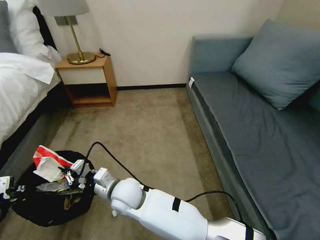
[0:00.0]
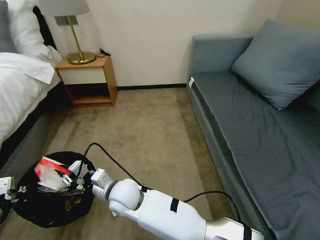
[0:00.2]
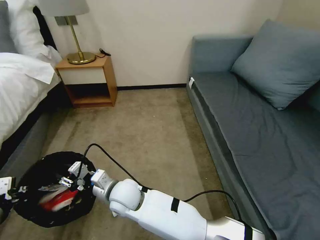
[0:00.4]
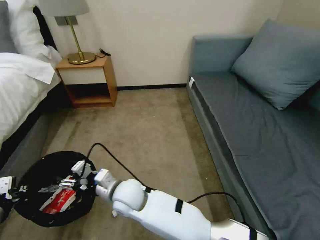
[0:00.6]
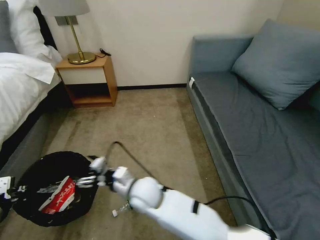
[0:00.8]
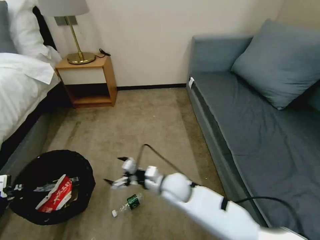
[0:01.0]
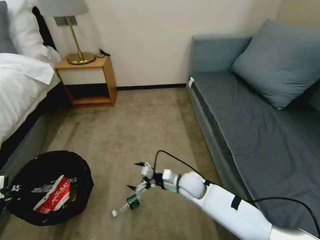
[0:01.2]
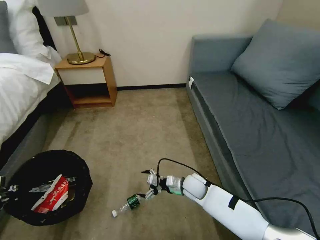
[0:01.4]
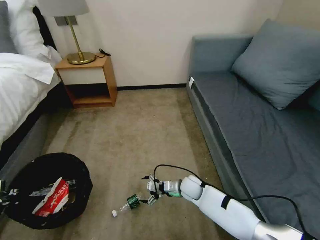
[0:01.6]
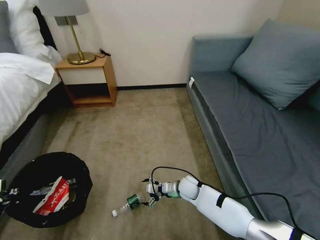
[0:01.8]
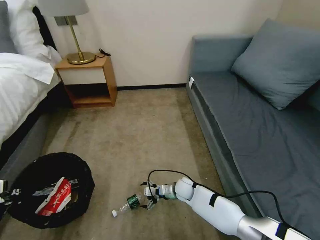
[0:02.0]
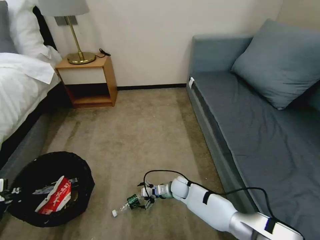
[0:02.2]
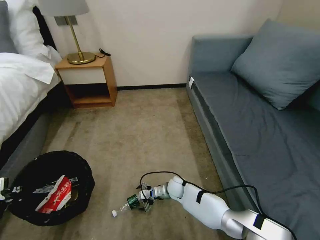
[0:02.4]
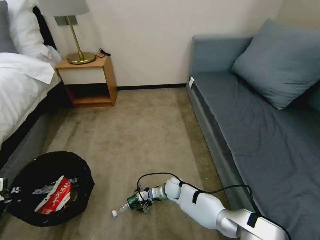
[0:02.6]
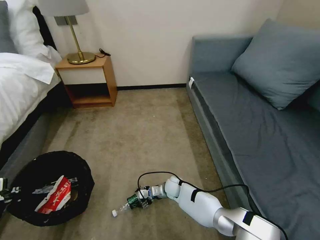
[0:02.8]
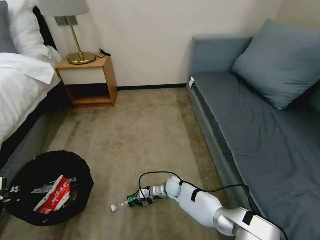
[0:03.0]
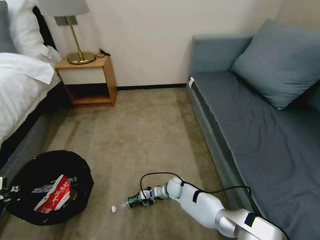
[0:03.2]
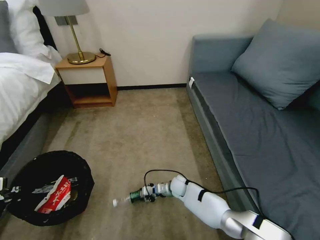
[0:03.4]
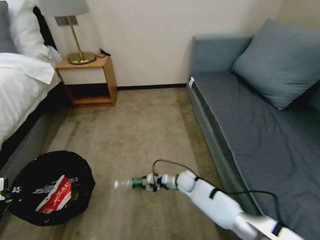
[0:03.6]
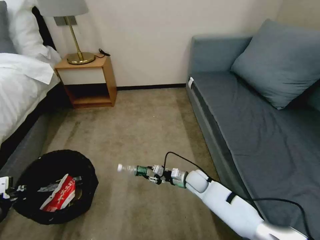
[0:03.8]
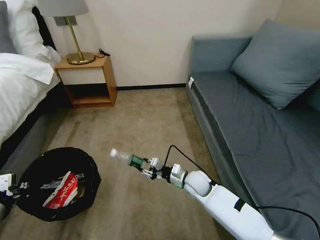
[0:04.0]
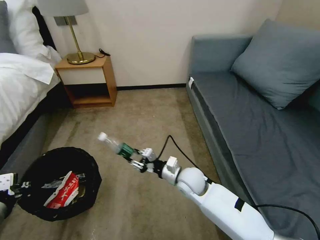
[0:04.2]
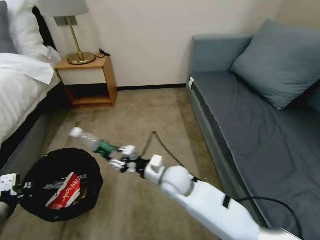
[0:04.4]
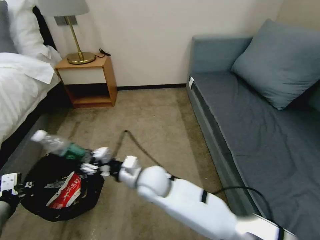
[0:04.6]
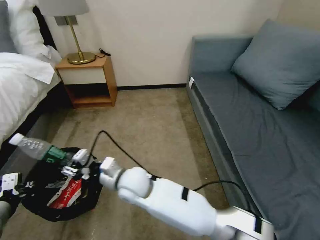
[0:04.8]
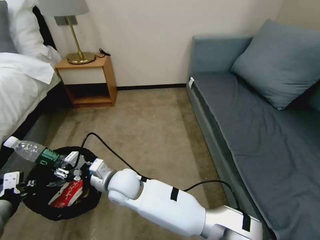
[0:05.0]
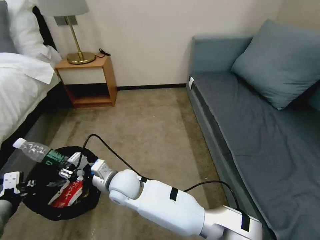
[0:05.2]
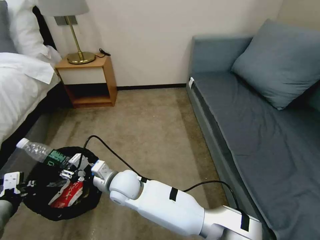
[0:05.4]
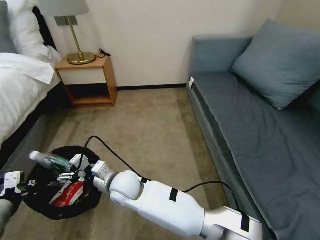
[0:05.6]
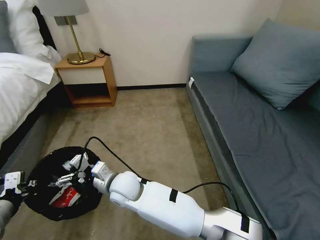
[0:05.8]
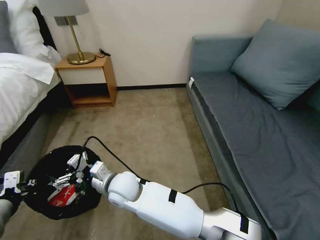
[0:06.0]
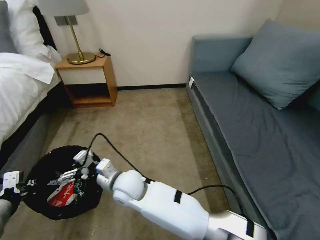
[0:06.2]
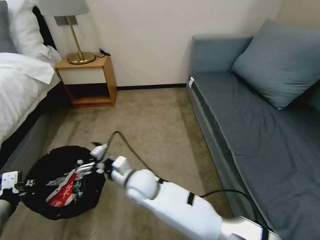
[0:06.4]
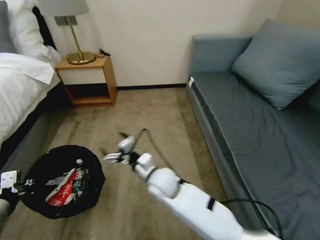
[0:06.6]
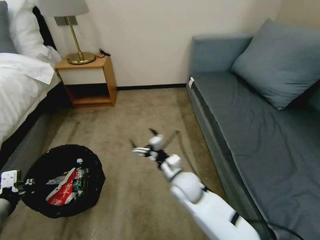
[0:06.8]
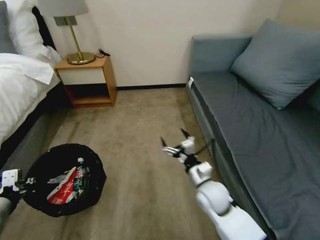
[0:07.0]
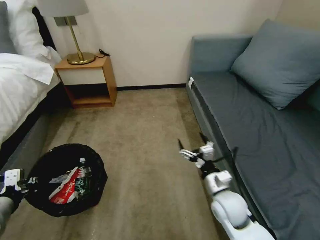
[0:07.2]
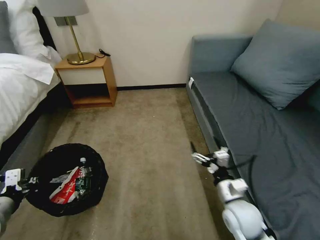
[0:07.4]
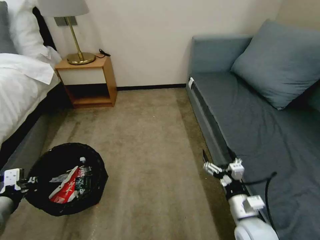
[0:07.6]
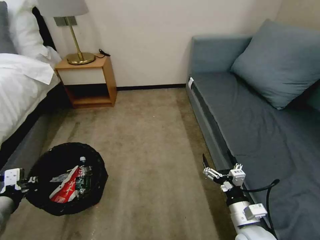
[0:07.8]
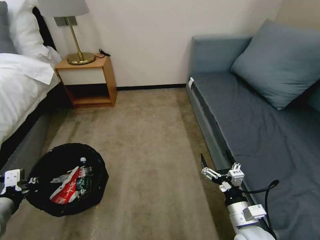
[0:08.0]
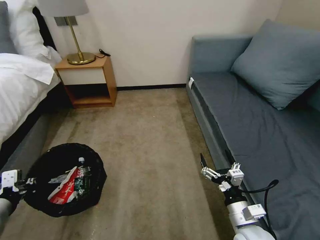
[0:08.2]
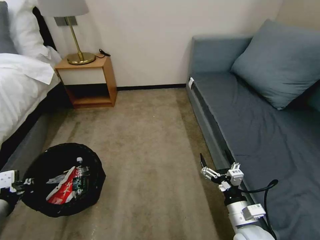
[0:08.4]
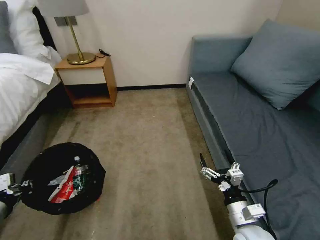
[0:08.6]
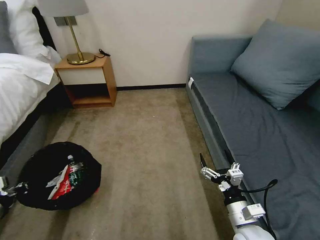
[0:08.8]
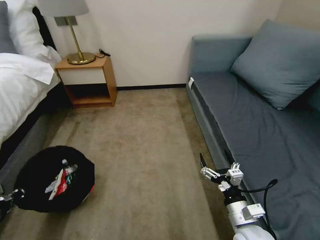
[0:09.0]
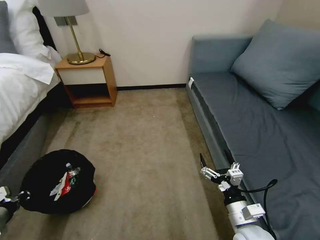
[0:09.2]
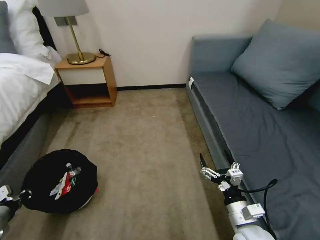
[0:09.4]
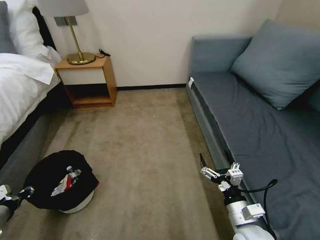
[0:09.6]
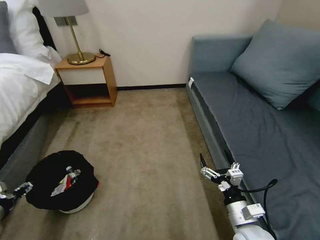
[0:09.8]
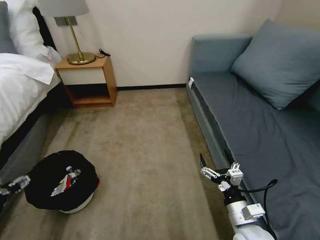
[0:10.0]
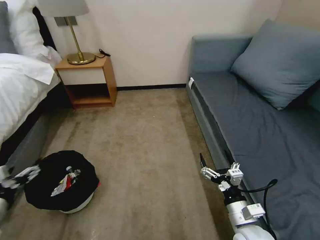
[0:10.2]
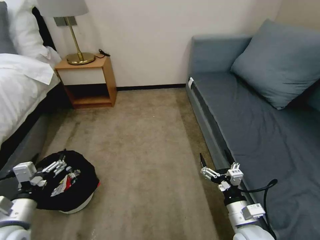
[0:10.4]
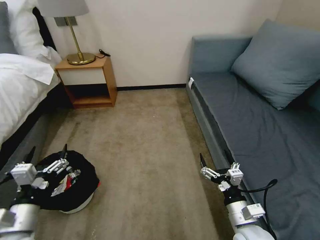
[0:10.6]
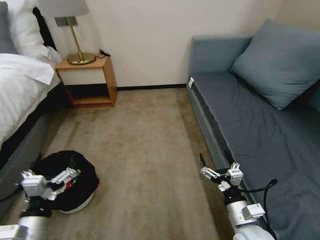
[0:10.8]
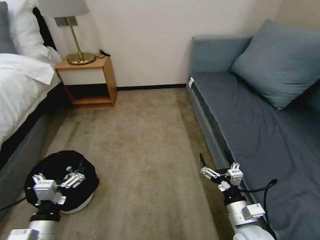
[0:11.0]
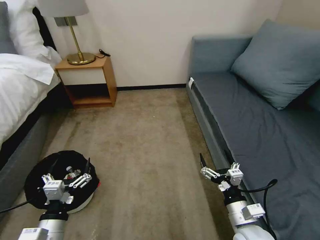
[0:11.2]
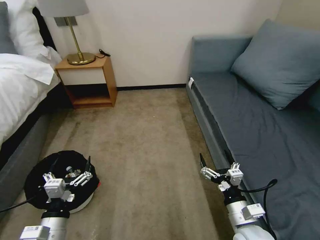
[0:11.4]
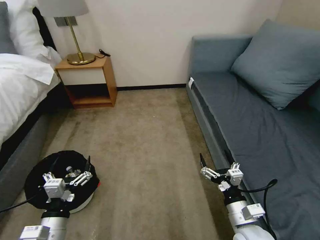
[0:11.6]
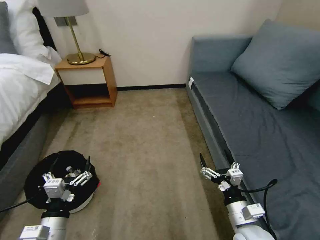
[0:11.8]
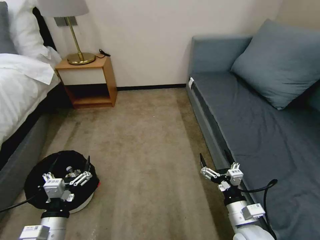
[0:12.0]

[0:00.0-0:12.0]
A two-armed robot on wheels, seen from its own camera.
Task of the whole recording: Pick up the trash bin, then pick up the garbage on the floor and place it into the trash bin.
0:00.0 to 0:01.6: The right gripper shifts some 30 cm to the right and downward, and opens up.
0:01.6 to 0:03.0: The right gripper is displaced downward and to the left by approximately 10 cm, and closes.
0:03.0 to 0:04.4: The right gripper travels upward by roughly 25 cm.
0:04.4 to 0:06.0: The right gripper shifts some 15 cm to the left, and opens up.
0:06.0 to 0:07.6: The right gripper is displaced to the right by roughly 40 cm.
0:07.6 to 0:09.0: The left gripper is displaced to the left and downward by roughly 10 cm.
0:09.0 to 0:10.4: The left gripper moves to the right, about 15 cm, and opens.
0:10.4 to 0:12.0: The left gripper shifts some 10 cm to the right and downward.

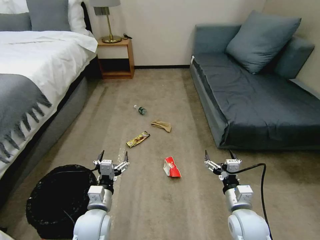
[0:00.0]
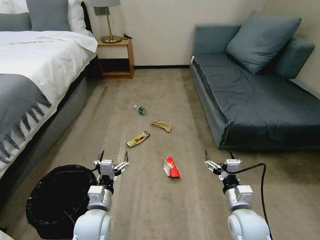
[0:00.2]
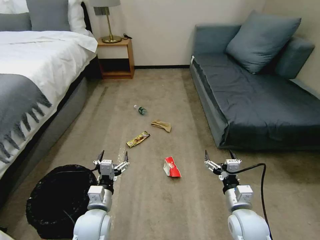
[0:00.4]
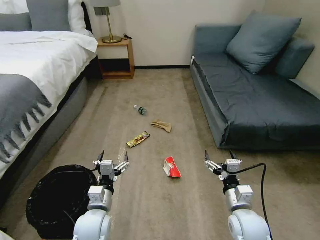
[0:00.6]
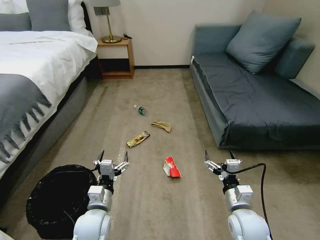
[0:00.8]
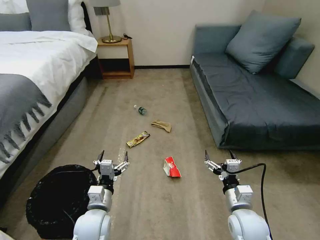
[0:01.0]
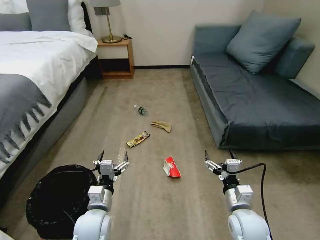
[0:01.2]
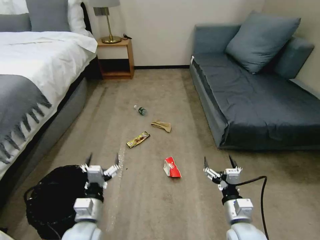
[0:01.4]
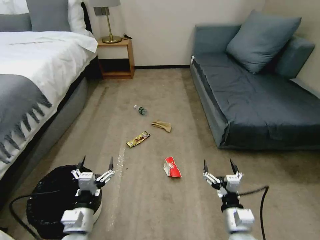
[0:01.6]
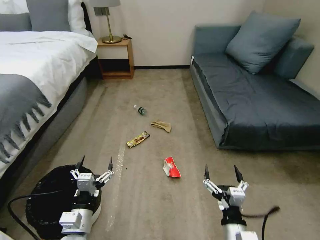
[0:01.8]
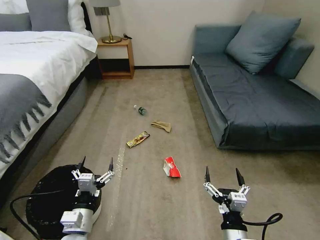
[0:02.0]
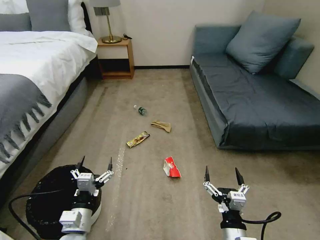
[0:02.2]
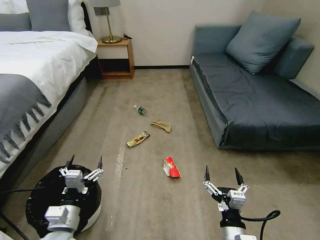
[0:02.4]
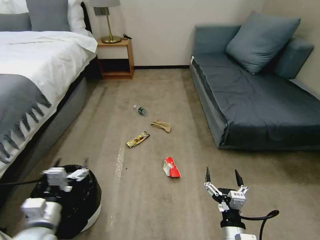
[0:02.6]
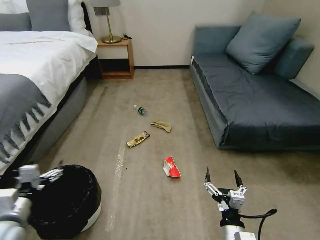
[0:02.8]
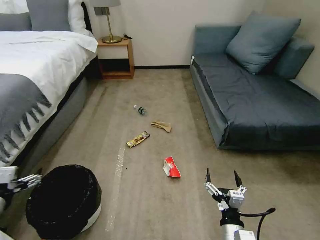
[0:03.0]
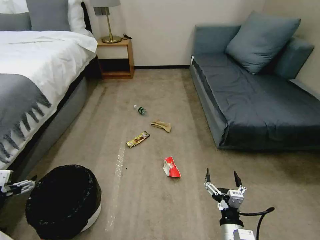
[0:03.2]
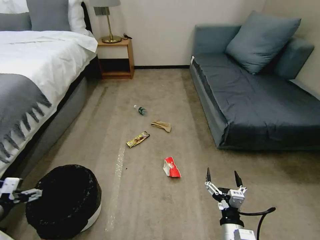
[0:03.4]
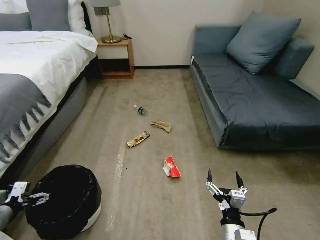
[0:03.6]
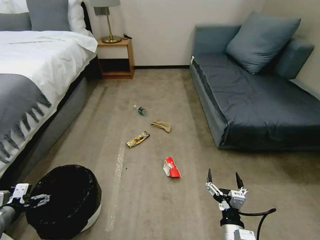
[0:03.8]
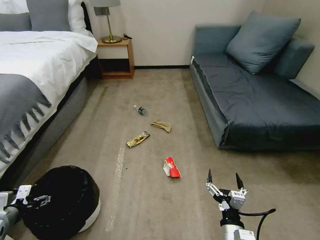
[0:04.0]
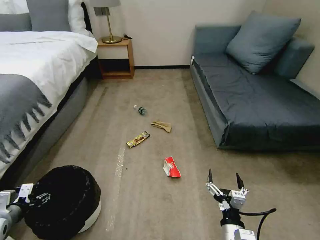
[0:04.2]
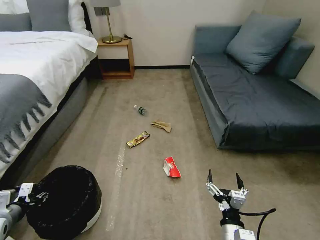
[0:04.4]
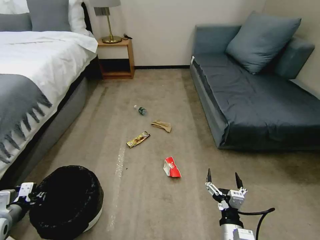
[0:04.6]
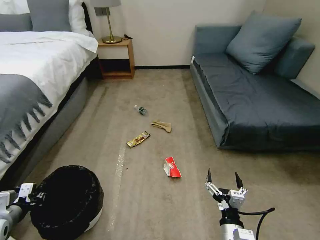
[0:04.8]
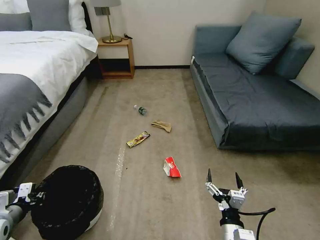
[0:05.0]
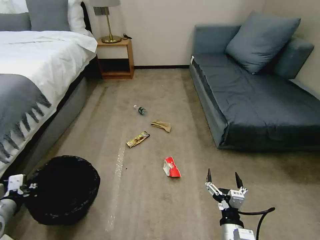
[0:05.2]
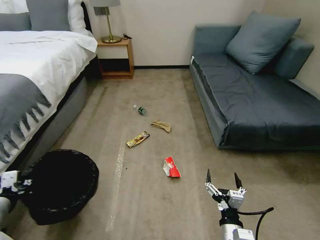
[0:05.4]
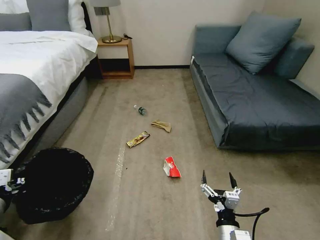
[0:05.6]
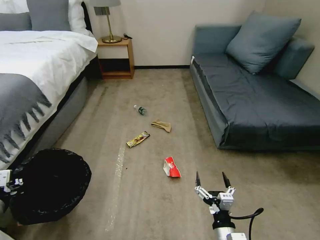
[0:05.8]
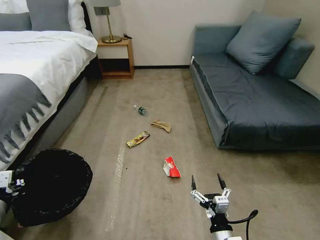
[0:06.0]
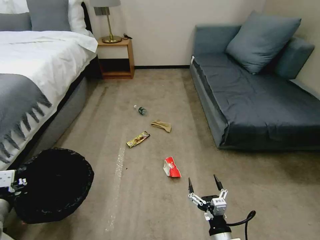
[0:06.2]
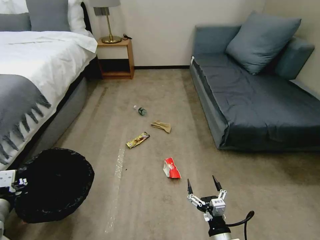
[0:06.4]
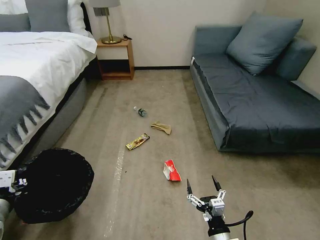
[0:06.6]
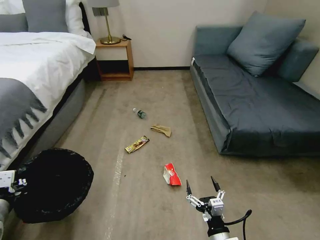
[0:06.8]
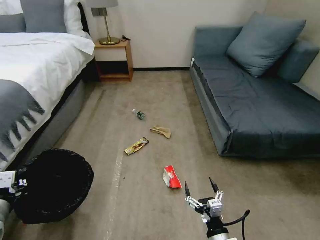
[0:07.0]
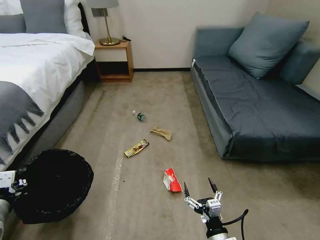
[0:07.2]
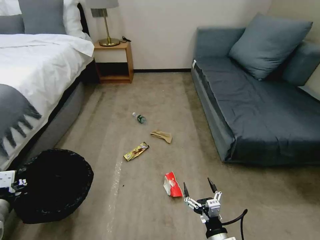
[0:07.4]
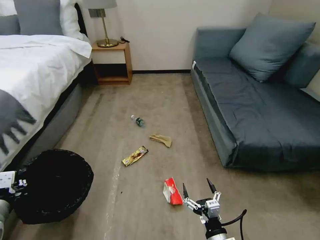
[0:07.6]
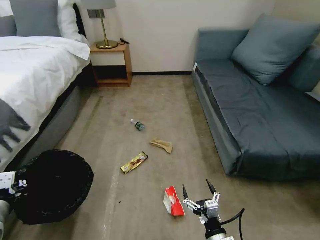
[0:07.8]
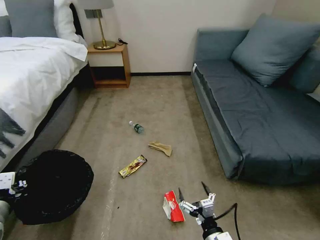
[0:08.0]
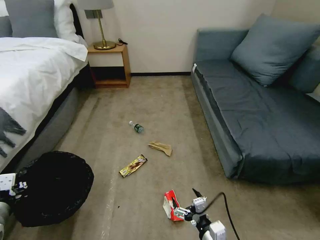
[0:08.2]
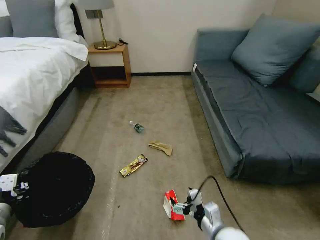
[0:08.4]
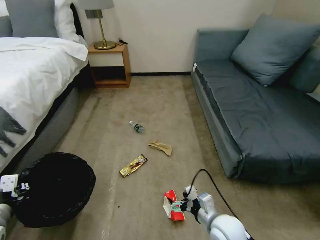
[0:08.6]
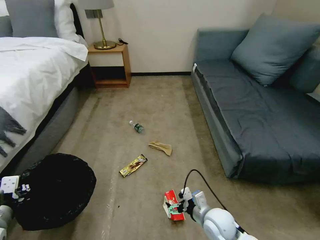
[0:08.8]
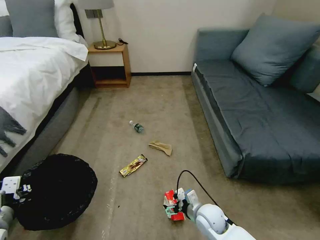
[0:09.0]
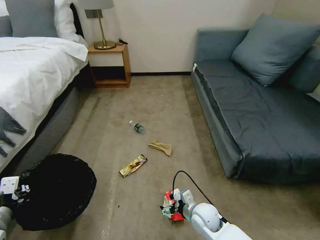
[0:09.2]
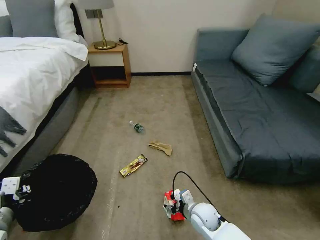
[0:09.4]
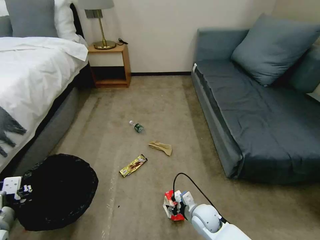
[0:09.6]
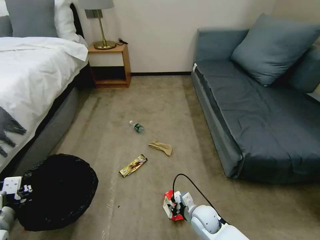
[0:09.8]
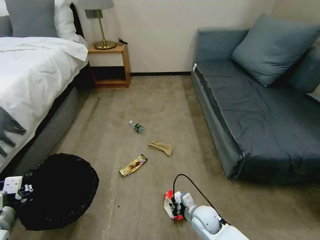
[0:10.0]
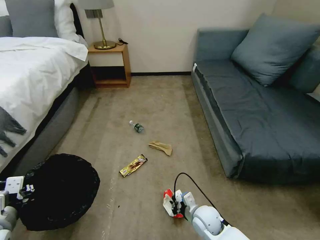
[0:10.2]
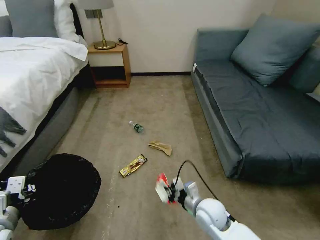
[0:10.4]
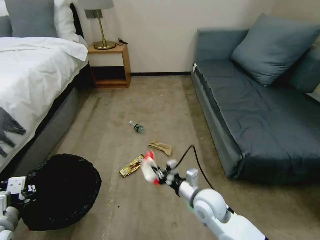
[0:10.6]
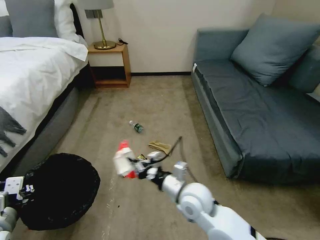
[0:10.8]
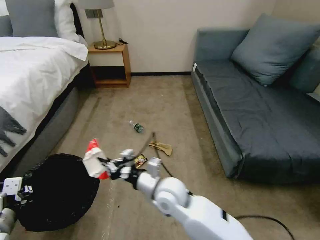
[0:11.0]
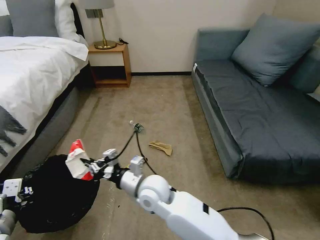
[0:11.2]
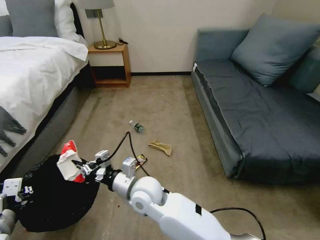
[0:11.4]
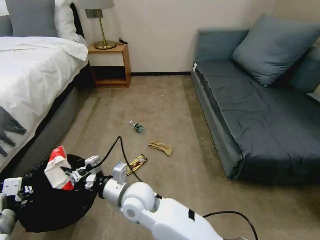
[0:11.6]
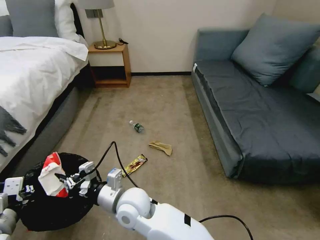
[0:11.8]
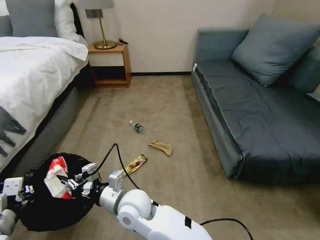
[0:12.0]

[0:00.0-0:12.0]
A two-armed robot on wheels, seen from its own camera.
Task of the whole recording: Pick up the trash bin, then pick up the garbage on the floor and place it into the trash bin.
0:01.6 to 0:03.0: The left gripper goes about 25 cm to the left and upward.
0:03.0 to 0:04.4: The left gripper shifts about 10 cm downward, and closes its fingers.
0:04.4 to 0:06.0: The left gripper shifts about 10 cm upward and to the right, and closes its fingers.
0:07.6 to 0:09.0: The right gripper heads forward, covering approximately 15 cm.
0:09.0 to 0:10.4: The right gripper closes.
0:10.4 to 0:12.0: The right gripper travels to the left and upward by about 25 cm.
